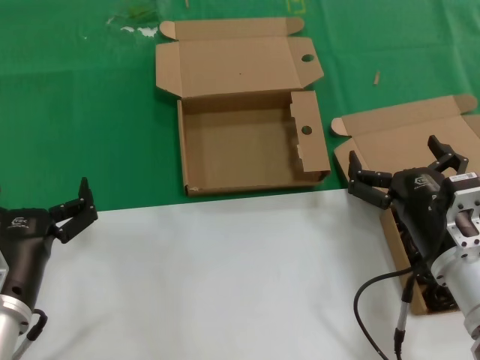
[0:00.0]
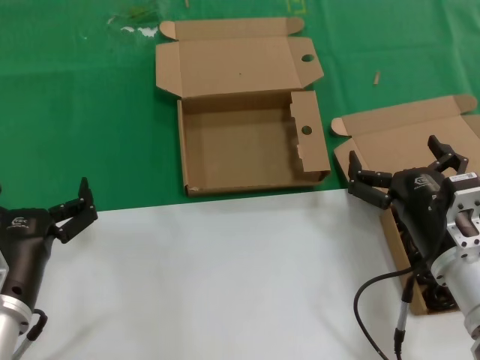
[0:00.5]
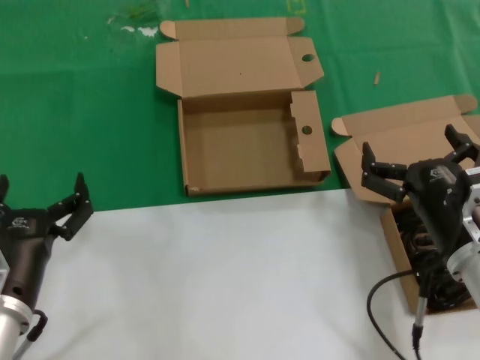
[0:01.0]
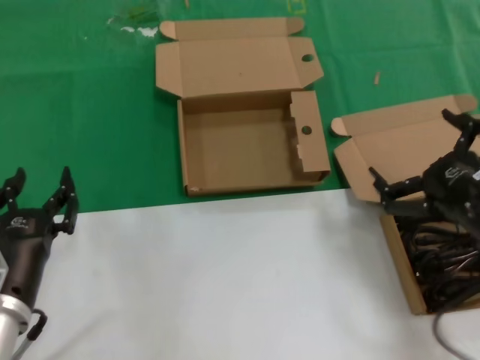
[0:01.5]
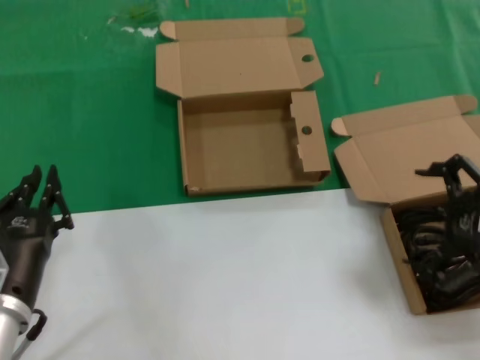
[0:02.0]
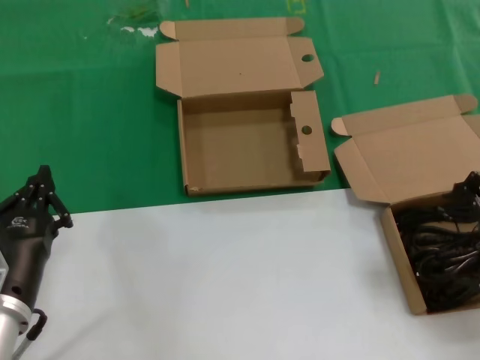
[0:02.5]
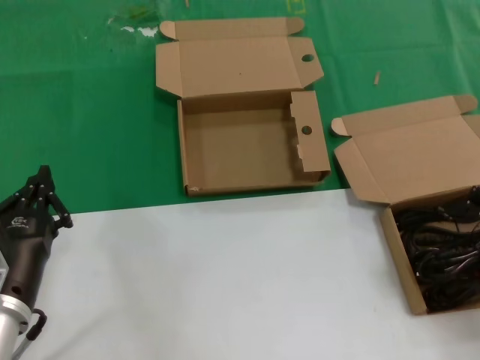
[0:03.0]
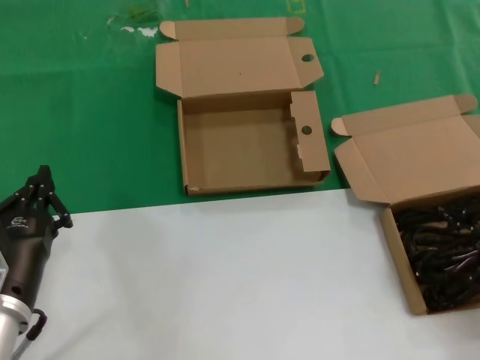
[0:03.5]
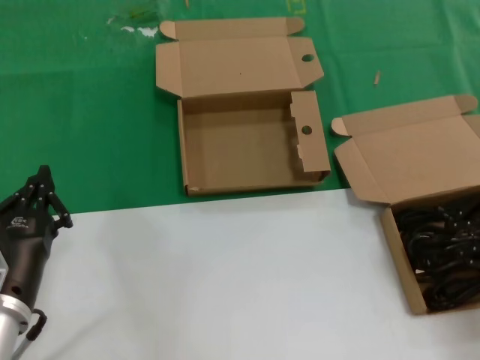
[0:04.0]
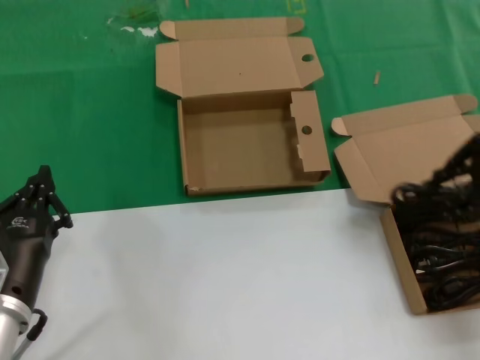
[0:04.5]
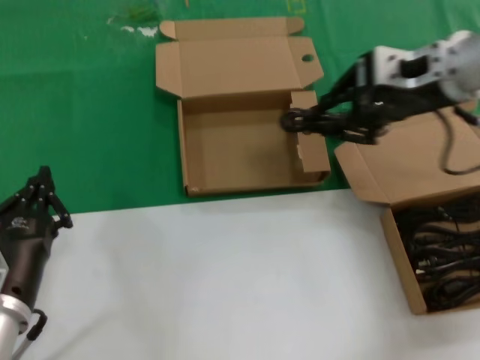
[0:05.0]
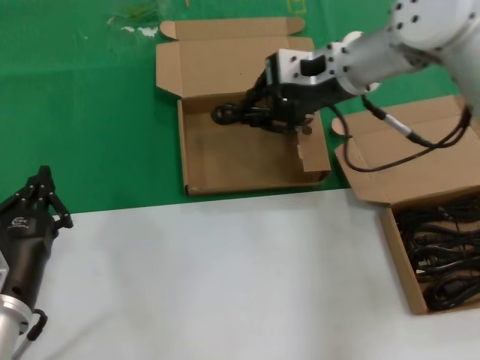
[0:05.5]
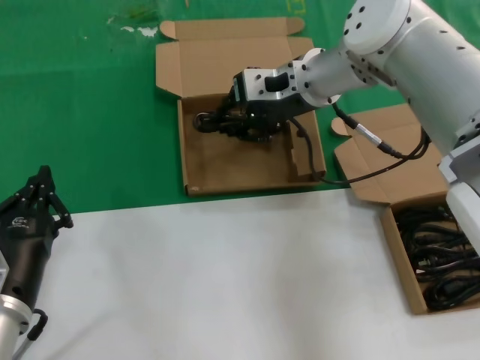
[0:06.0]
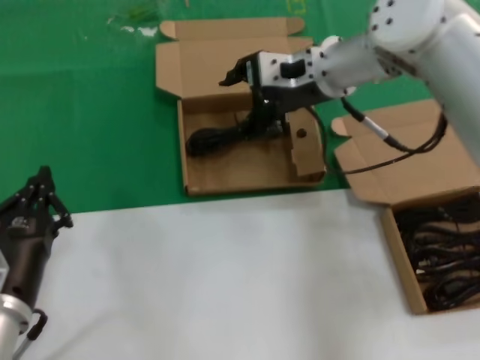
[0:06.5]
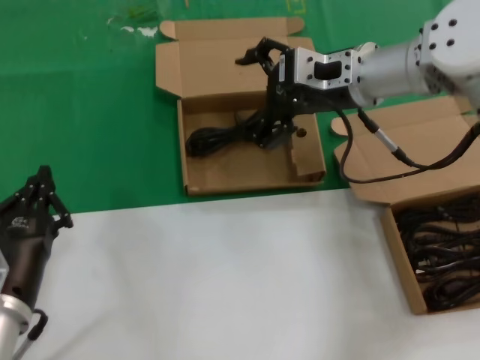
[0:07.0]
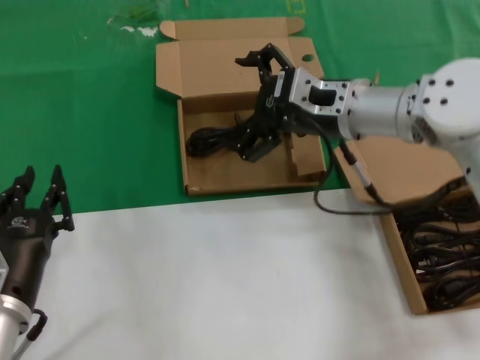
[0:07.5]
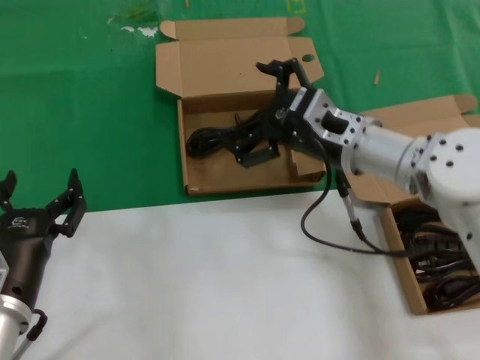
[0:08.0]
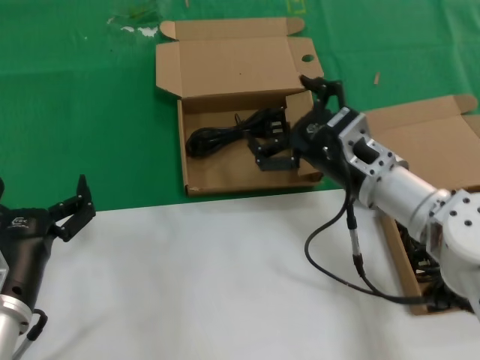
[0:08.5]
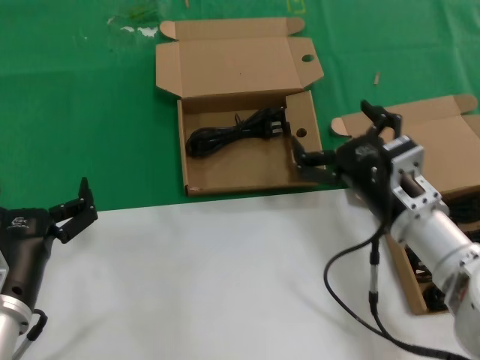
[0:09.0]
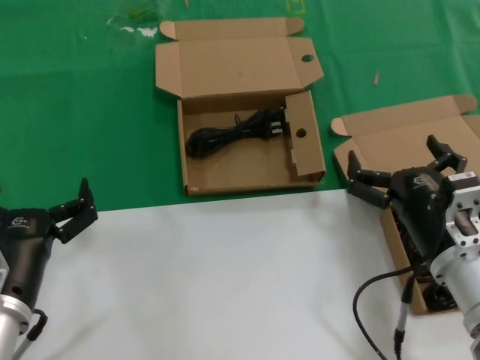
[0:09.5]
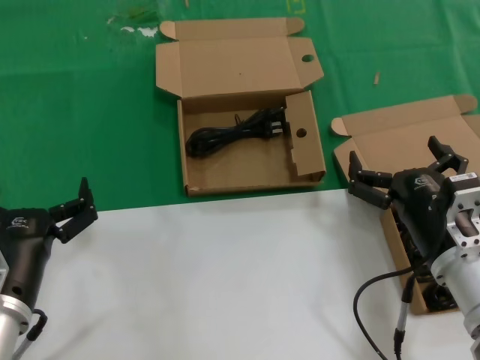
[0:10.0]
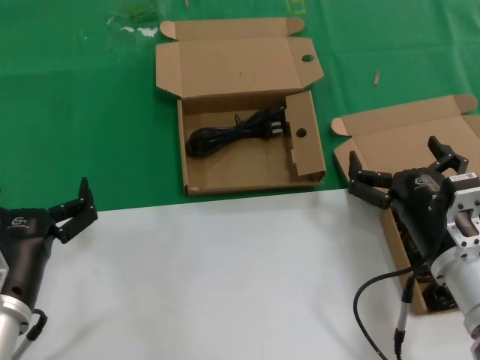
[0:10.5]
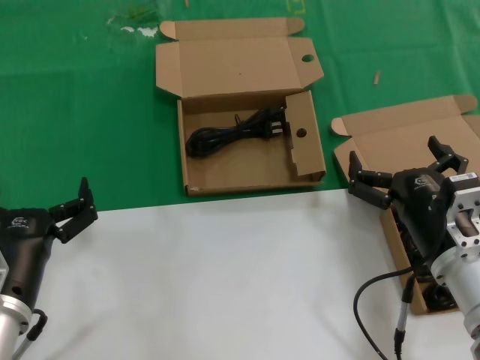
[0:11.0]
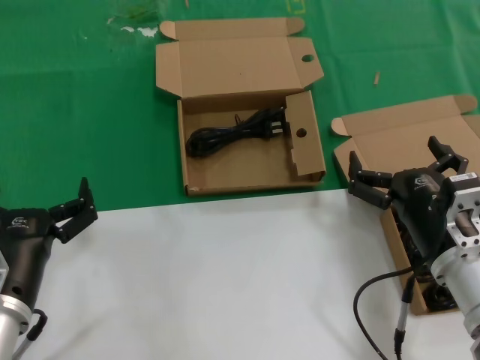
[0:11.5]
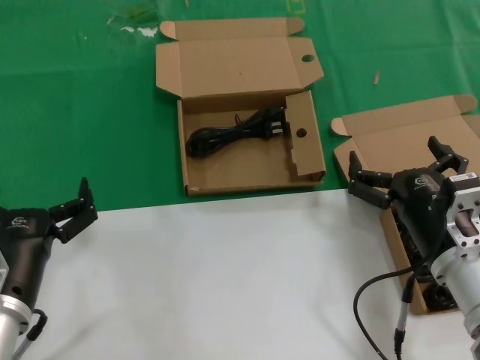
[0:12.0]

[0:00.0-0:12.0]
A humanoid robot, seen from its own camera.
Task of the whole recording: take the parts from the box containing them and put them into an empty box.
Step, 0:00.0 to 0:03.5: Grasp the data cable.
Step, 0:04.0 to 0:06.5: Place the data cable in the another box.
0:00.0 to 0:02.0: The right hand goes roughly 15 cm upward and to the right.
0:02.0 to 0:04.0: The right hand travels forward by roughly 5 cm.
0:04.0 to 0:06.0: The right hand is displaced to the left and forward by roughly 35 cm.
0:06.0 to 0:08.0: The right hand moves backward and downward, about 15 cm.
0:08.0 to 0:10.0: The right hand is displaced backward and downward by approximately 20 cm.
0:10.0 to 0:12.0: The two hands keep their place.

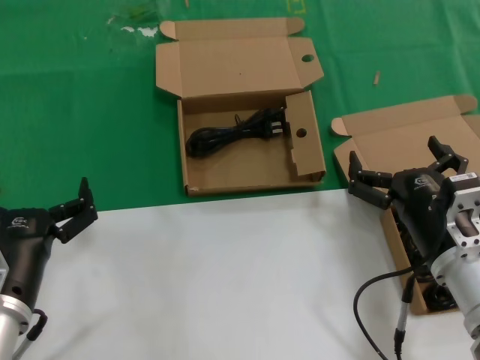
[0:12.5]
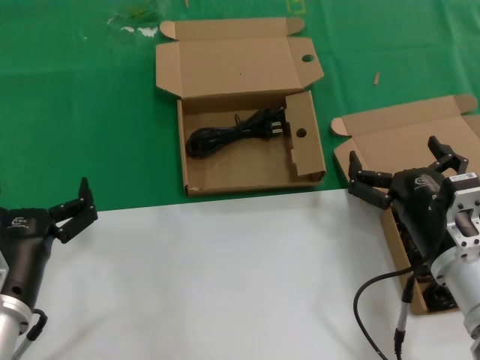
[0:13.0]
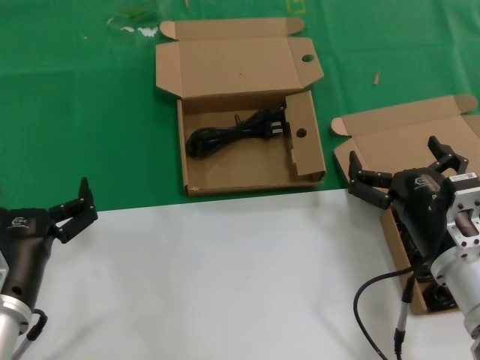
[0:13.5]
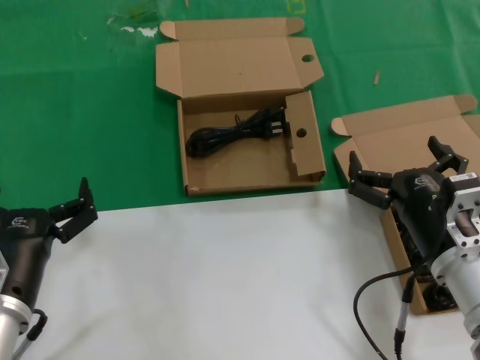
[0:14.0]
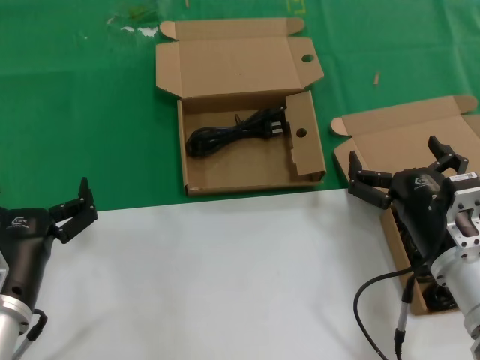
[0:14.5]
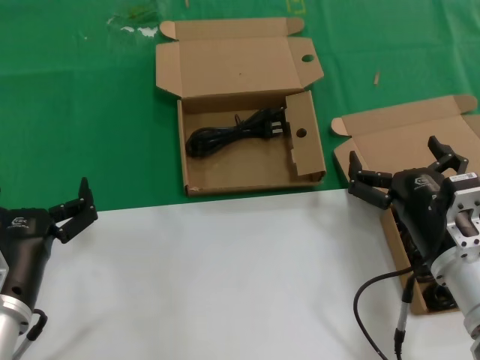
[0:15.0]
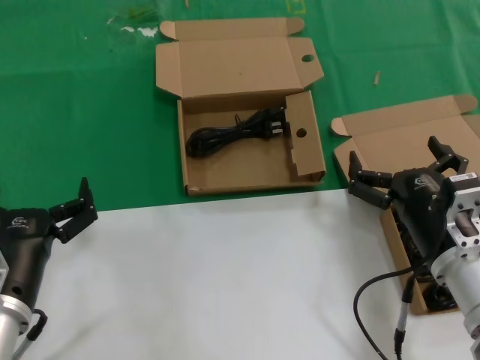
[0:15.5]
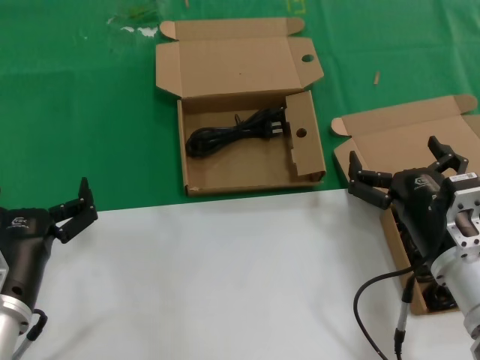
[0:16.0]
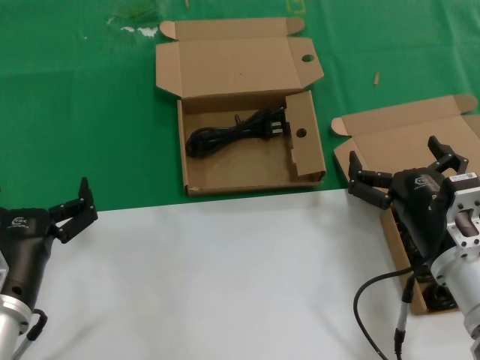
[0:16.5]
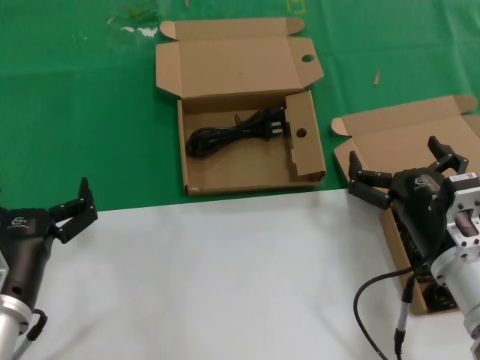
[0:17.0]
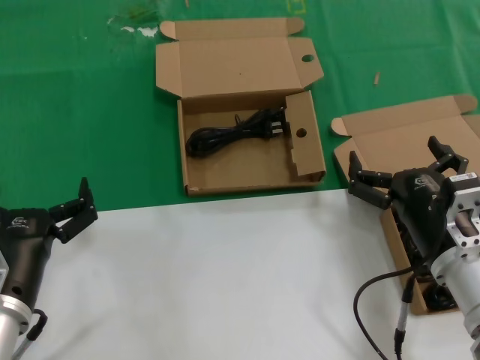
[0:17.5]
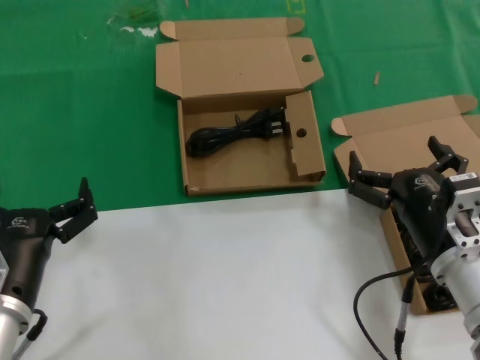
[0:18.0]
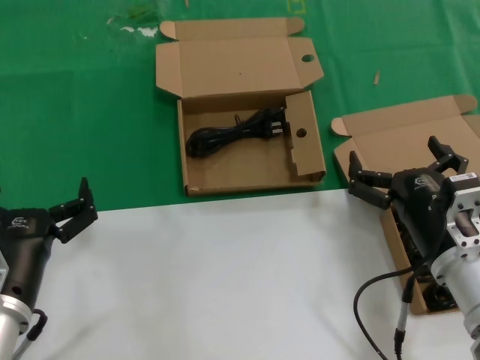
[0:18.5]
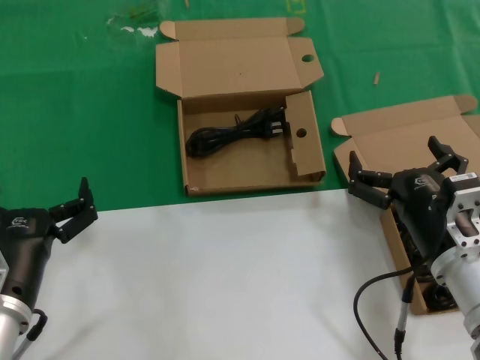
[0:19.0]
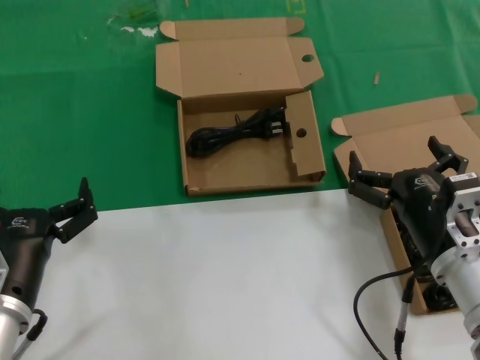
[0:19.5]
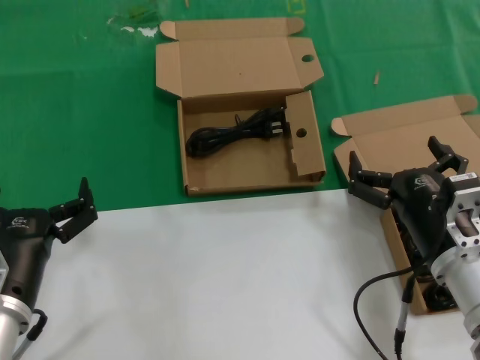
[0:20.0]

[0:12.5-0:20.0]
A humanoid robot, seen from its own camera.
Task of the whole recording: take the parts from the box containing them and put them into an empty box.
0:12.5 to 0:20.0: Both hands stay about where they are.

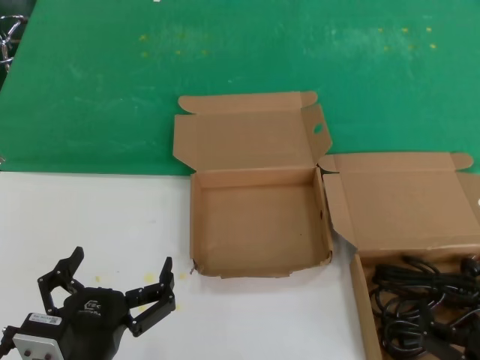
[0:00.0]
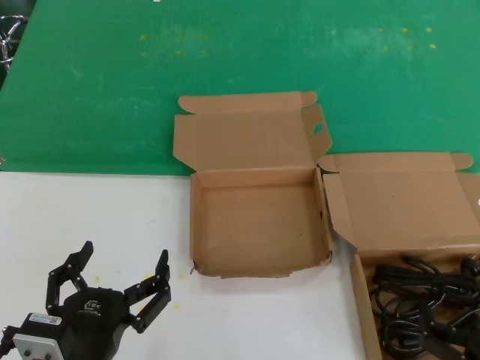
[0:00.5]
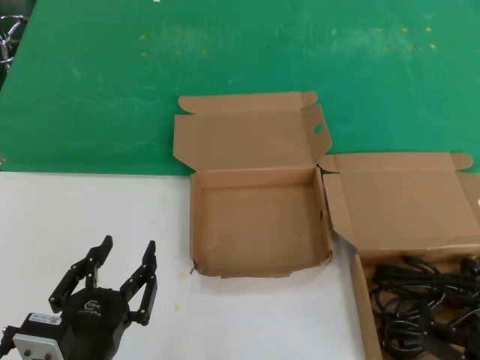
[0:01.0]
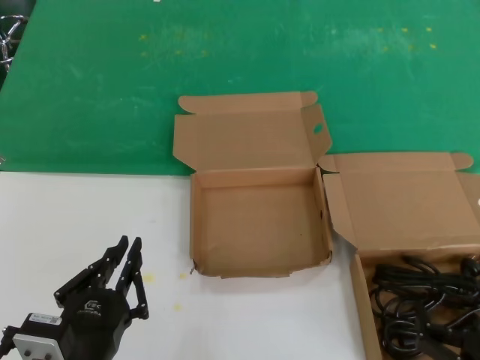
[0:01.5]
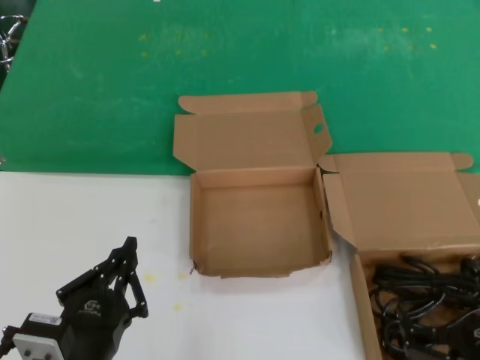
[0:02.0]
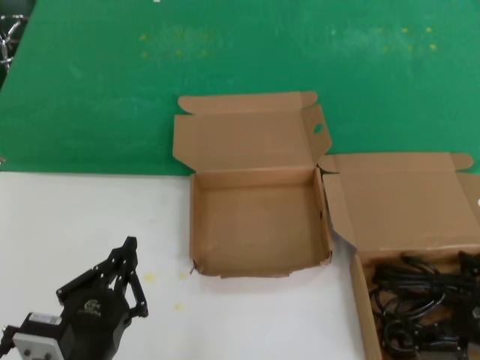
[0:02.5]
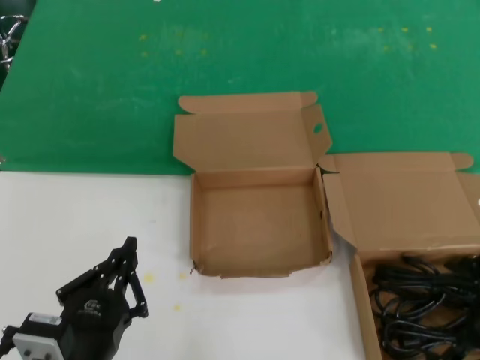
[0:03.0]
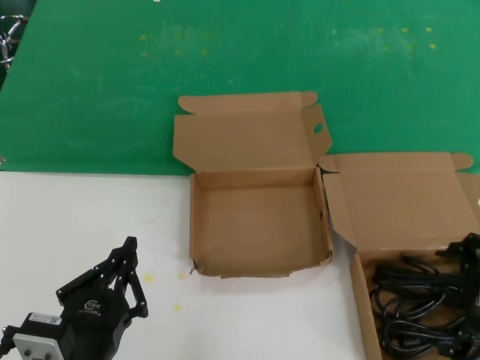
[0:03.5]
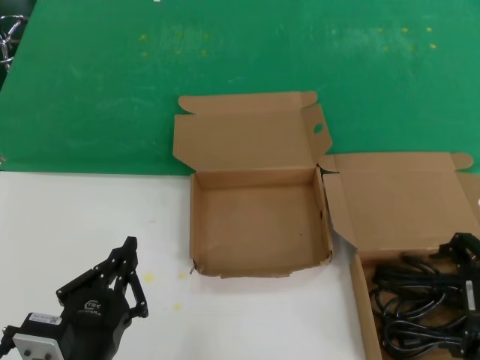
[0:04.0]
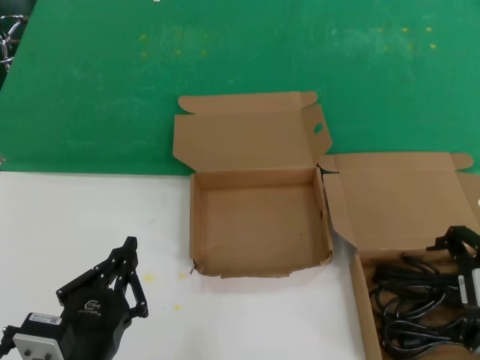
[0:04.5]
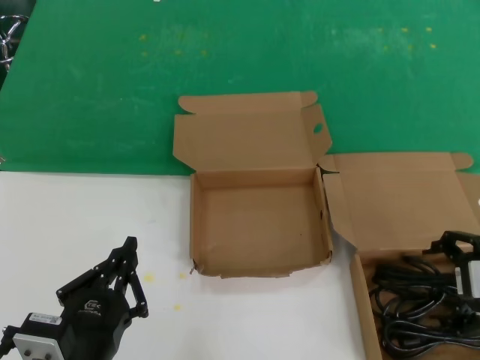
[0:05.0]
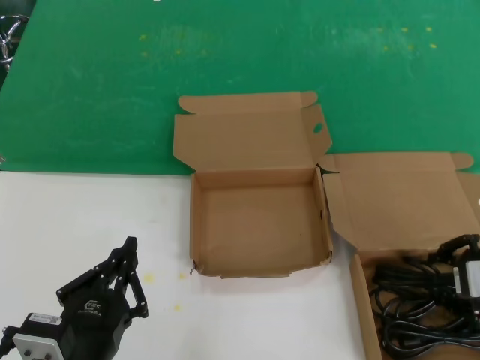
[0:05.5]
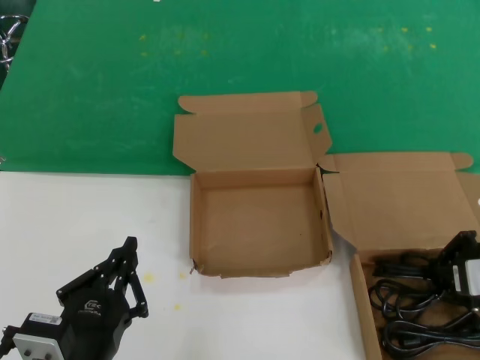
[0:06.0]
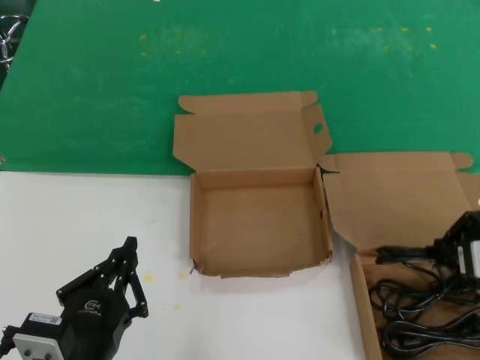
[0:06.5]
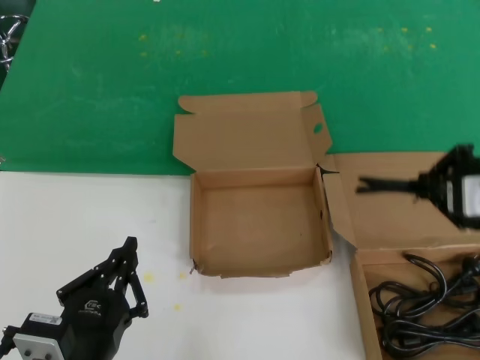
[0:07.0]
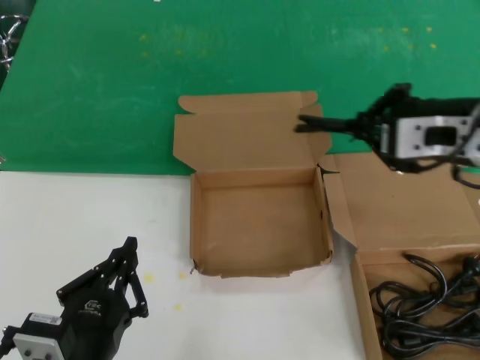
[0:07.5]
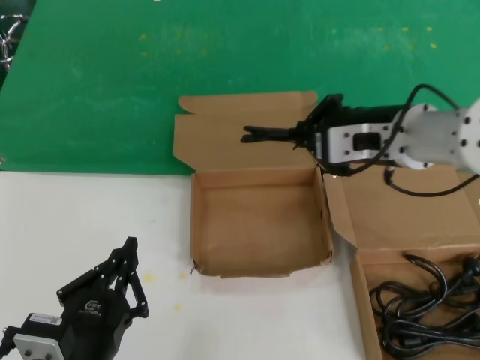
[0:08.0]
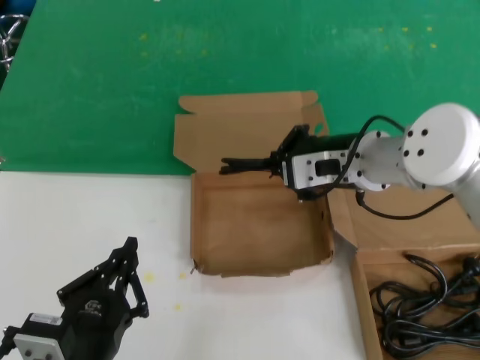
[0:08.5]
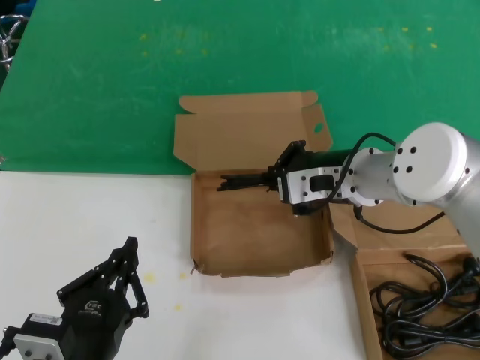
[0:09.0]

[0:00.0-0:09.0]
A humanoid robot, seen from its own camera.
Task of the whole recording: take the parts from the box containing them and put them into an empty box.
Step, 0:00.0 to 0:05.5: Grasp the data cable.
0:00.0 to 0:02.0: The hands move only a little.
0:02.0 to 0:04.5: The right hand shifts some 20 cm upward and forward.
0:04.5 to 0:07.0: The right hand is displaced upward by some 5 cm.
0:07.0 to 0:09.0: The right hand is displaced to the left and forward by some 20 cm.
